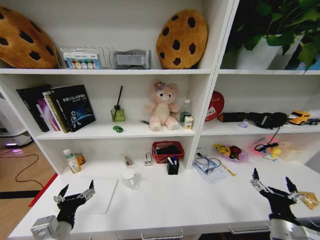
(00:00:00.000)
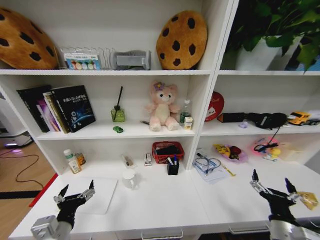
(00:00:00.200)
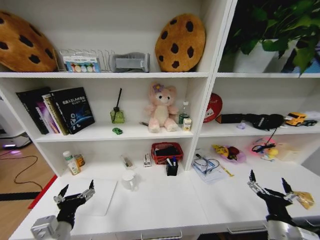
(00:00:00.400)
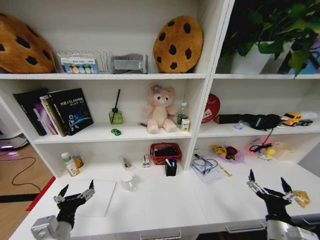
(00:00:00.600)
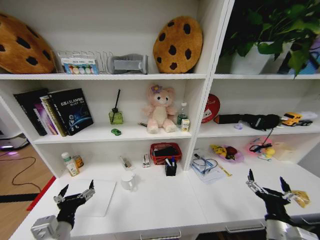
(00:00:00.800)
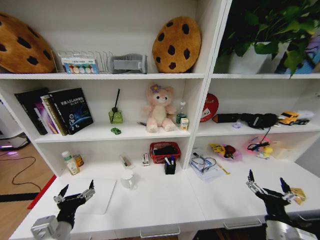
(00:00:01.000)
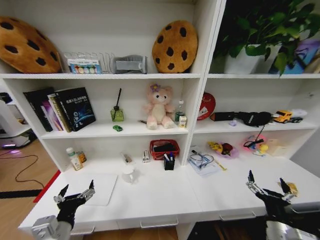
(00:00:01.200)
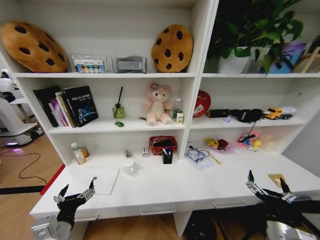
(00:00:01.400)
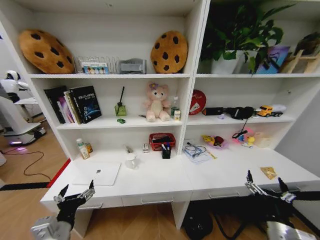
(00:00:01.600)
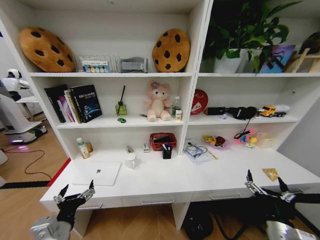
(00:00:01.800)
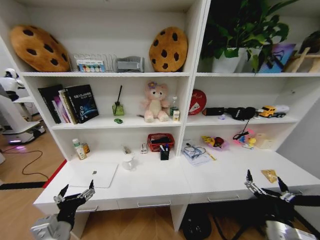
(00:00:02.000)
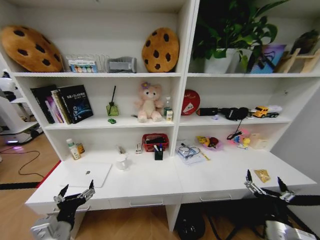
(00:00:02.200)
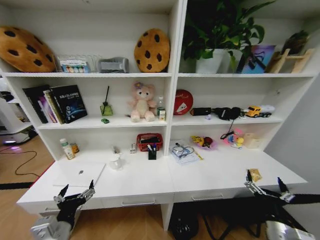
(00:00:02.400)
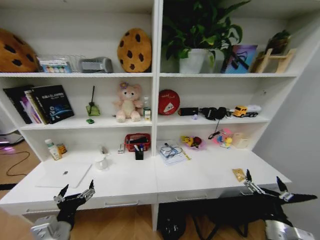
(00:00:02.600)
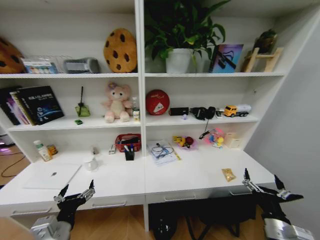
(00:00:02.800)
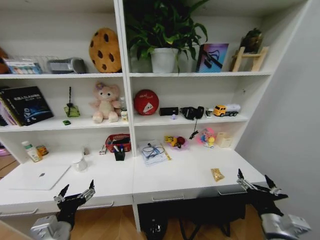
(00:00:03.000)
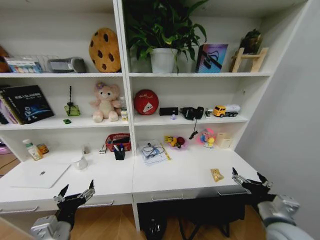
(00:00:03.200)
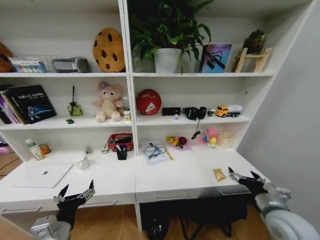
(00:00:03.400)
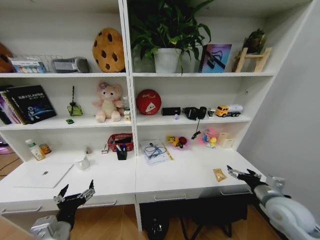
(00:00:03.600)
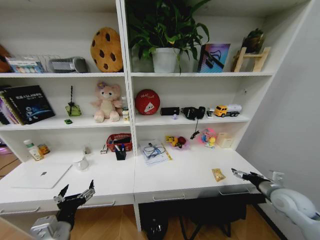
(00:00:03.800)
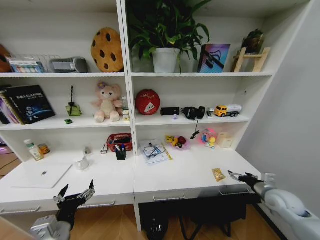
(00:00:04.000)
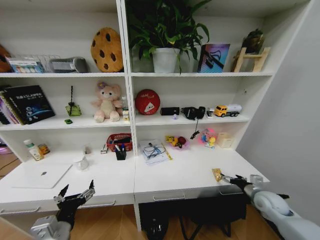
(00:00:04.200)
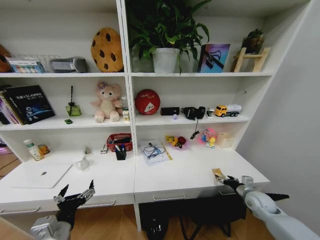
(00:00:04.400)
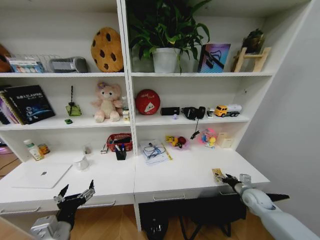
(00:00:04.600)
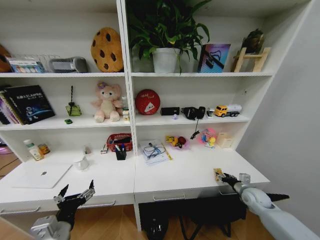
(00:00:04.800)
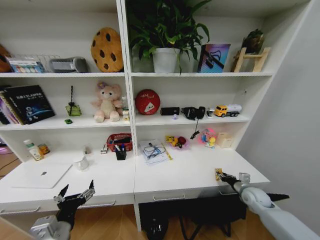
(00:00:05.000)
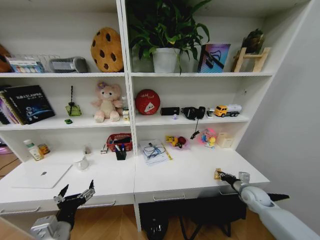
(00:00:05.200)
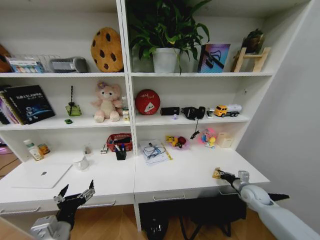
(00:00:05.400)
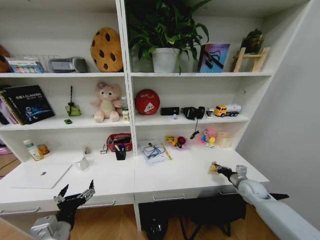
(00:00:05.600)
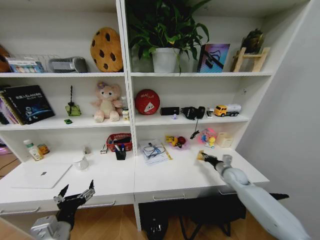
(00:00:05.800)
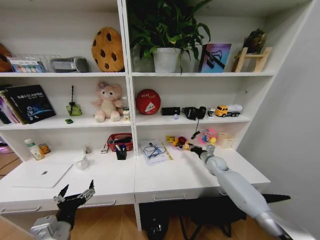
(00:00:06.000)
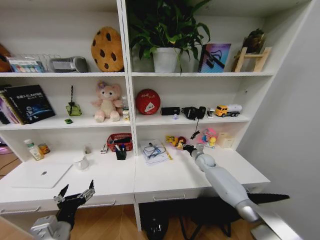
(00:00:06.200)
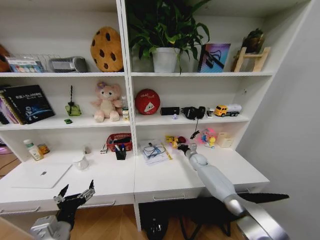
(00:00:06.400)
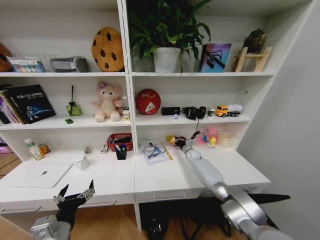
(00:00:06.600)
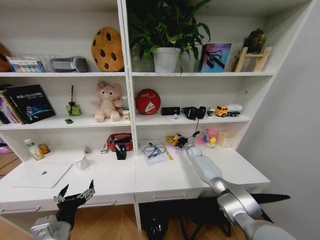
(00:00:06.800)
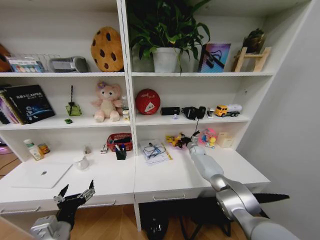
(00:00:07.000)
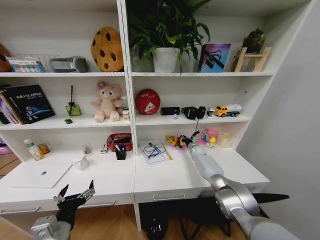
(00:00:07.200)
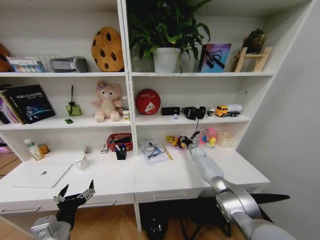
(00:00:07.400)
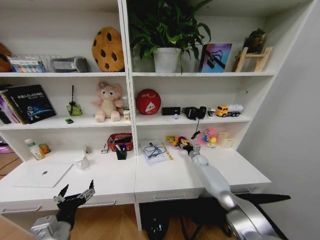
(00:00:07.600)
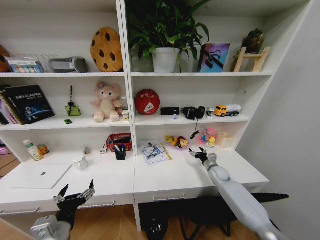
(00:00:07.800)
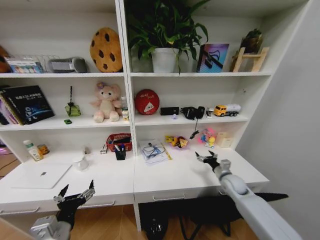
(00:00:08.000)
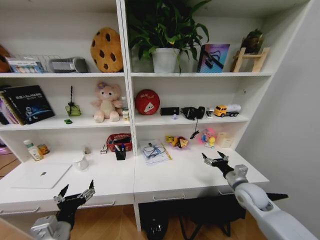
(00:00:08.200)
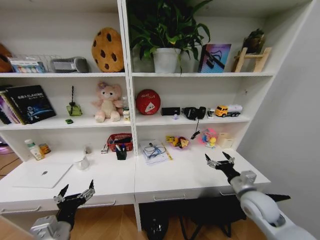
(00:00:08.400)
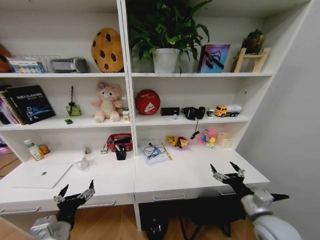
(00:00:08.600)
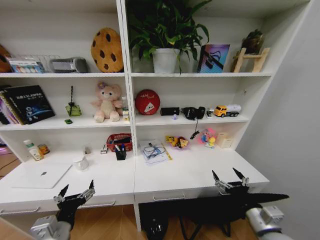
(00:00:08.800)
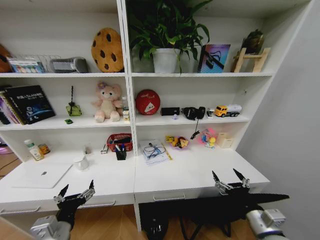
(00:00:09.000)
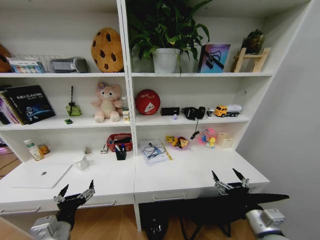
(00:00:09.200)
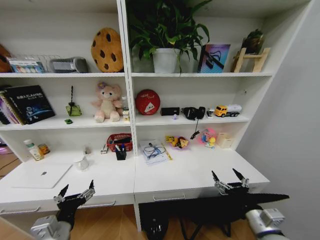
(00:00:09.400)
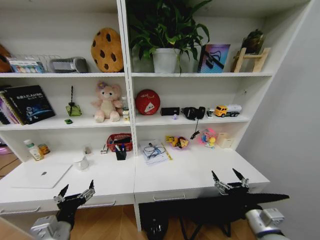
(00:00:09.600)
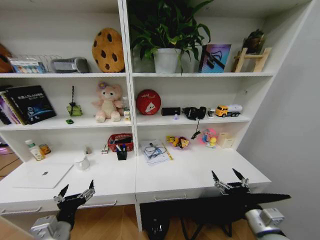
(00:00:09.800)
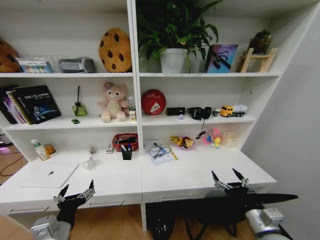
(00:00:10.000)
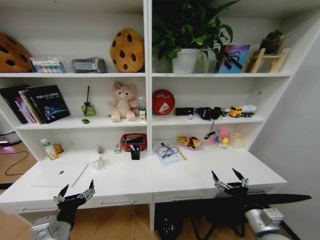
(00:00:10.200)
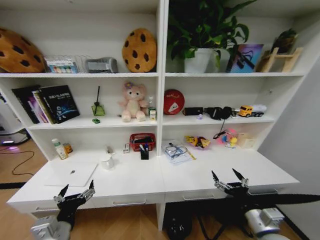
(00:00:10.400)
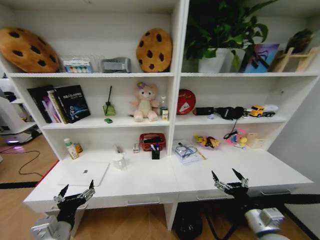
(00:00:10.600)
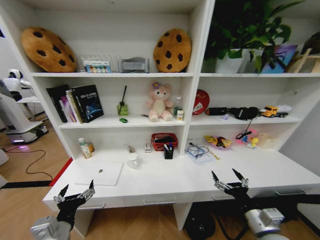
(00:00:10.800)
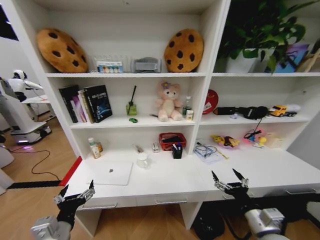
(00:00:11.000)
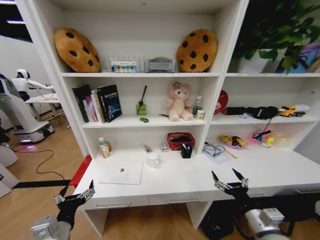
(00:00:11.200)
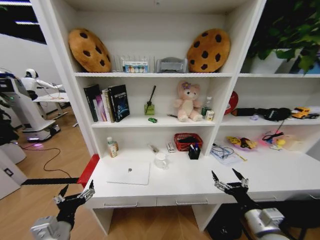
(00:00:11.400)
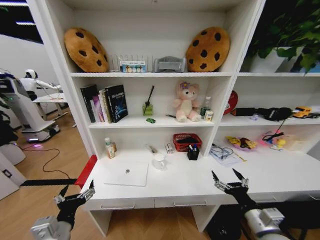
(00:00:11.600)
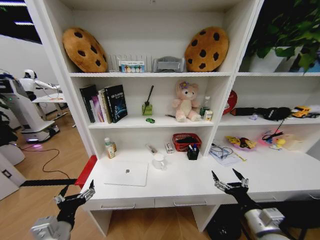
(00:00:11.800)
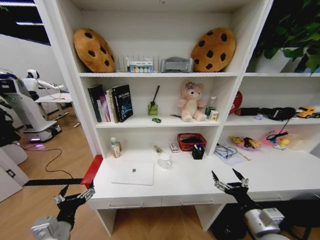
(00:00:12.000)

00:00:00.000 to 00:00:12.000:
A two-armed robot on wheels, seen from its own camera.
Task of the whole recording: Organize the objects on the table.
00:00:03.000 to 00:00:04.400: The right gripper goes some 20 cm forward, to the right and downward.
00:00:04.400 to 00:00:06.000: The right gripper goes roughly 25 cm forward and to the left, and closes its fingers.
00:00:06.000 to 00:00:07.600: The right gripper is displaced downward and forward by about 10 cm, and opens.
00:00:07.600 to 00:00:09.000: The right gripper shifts approximately 40 cm backward, and opens.
